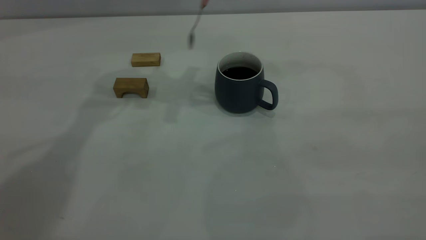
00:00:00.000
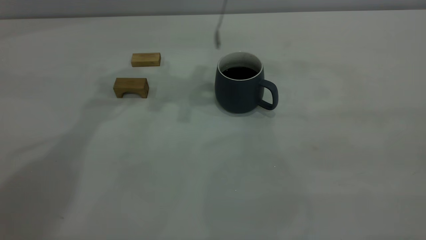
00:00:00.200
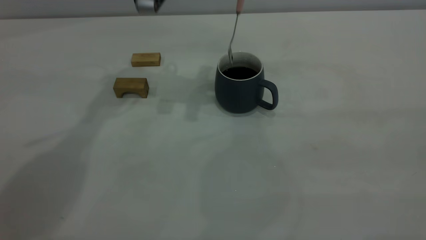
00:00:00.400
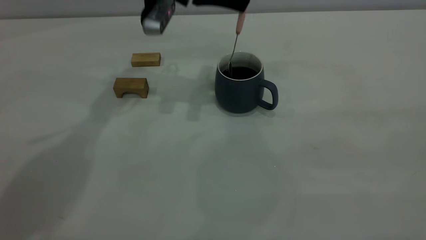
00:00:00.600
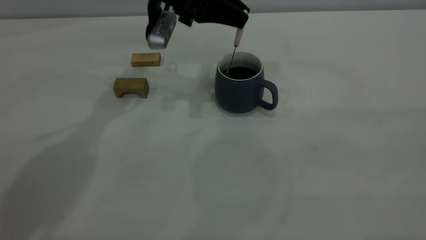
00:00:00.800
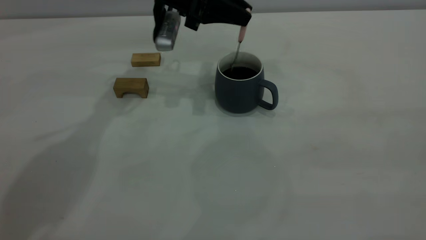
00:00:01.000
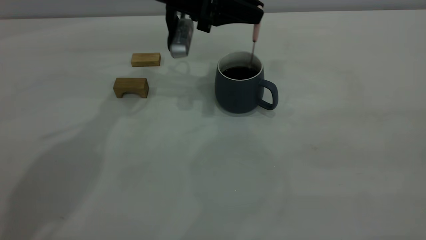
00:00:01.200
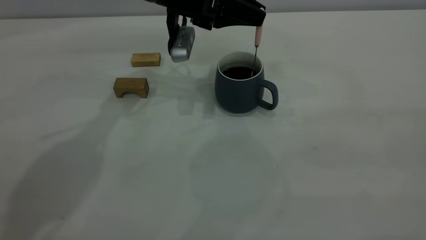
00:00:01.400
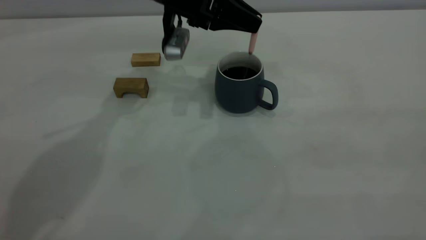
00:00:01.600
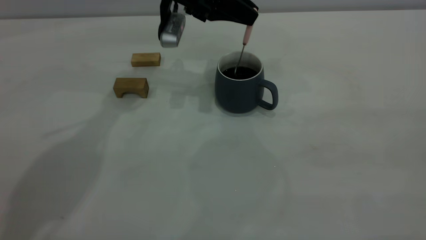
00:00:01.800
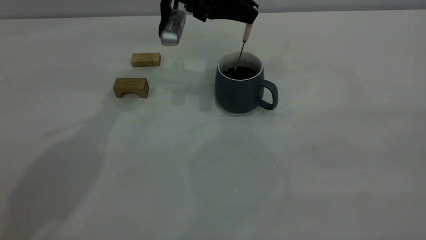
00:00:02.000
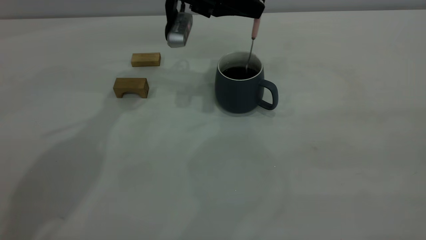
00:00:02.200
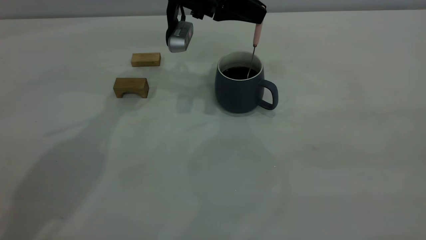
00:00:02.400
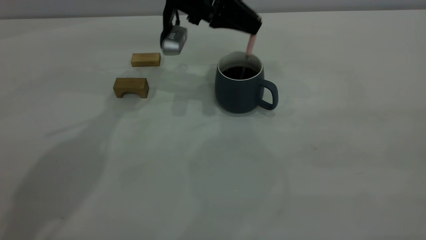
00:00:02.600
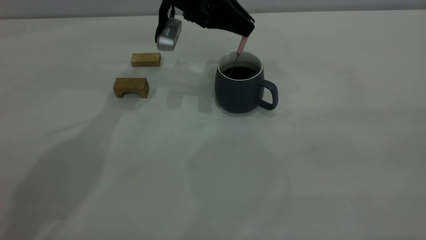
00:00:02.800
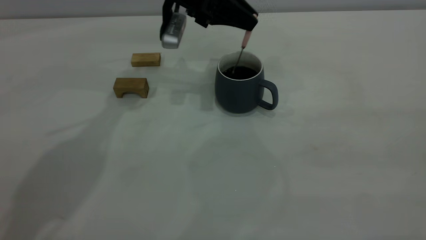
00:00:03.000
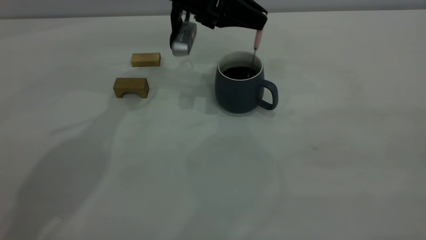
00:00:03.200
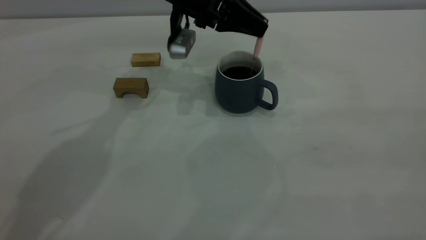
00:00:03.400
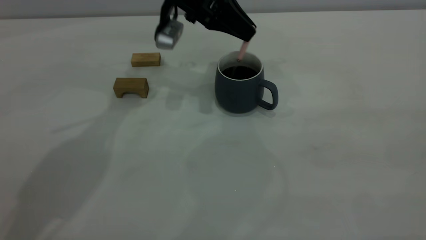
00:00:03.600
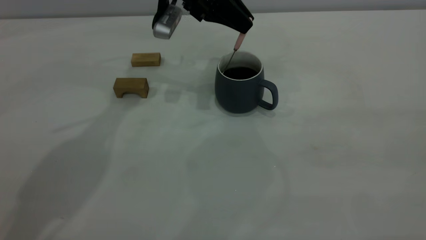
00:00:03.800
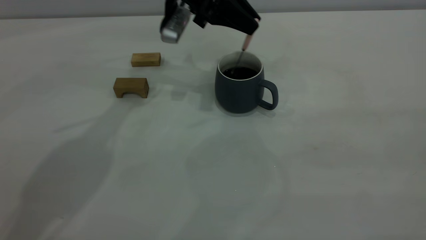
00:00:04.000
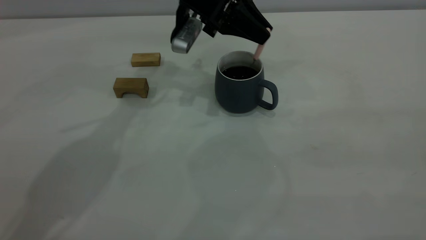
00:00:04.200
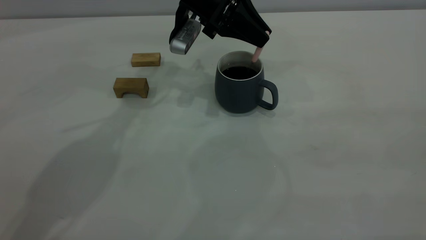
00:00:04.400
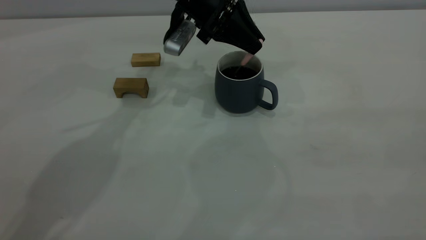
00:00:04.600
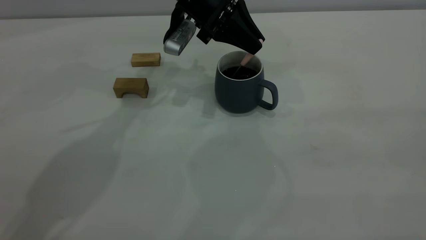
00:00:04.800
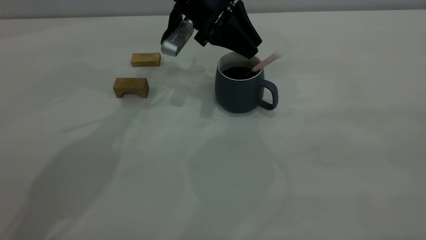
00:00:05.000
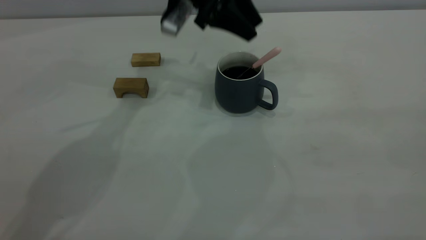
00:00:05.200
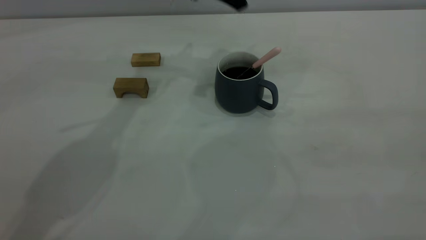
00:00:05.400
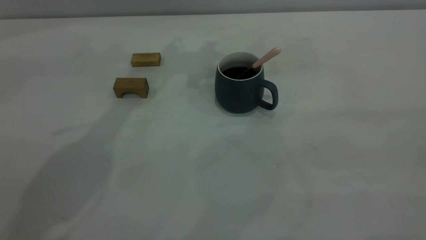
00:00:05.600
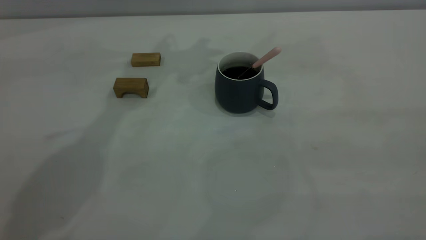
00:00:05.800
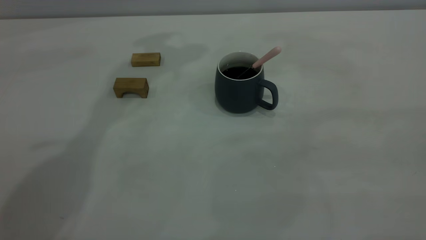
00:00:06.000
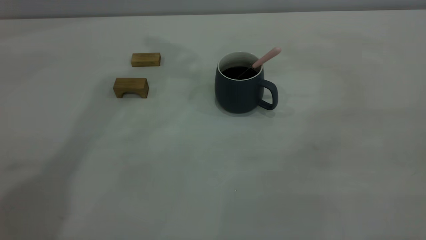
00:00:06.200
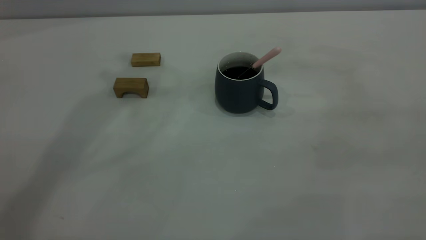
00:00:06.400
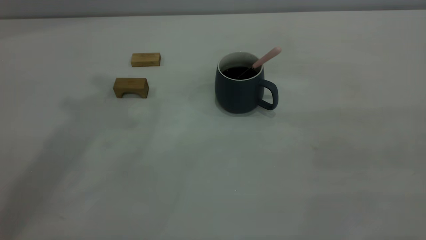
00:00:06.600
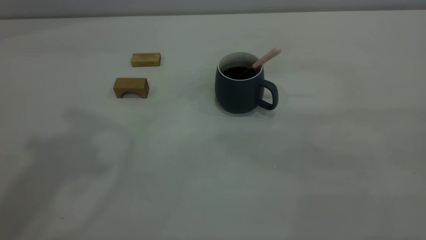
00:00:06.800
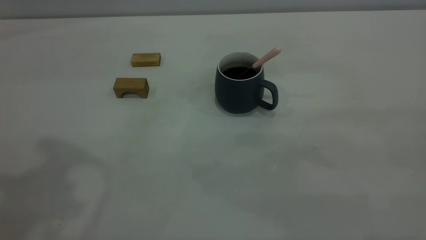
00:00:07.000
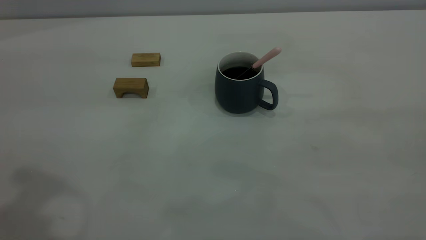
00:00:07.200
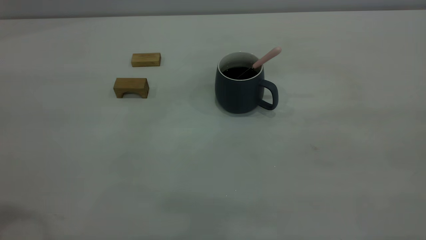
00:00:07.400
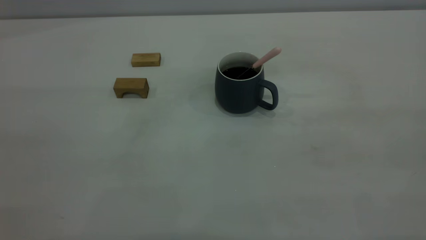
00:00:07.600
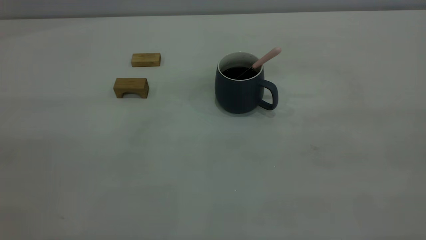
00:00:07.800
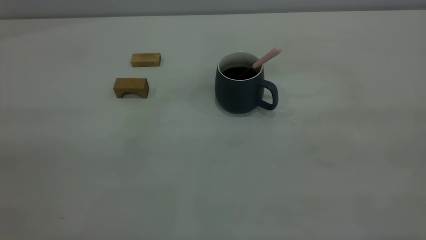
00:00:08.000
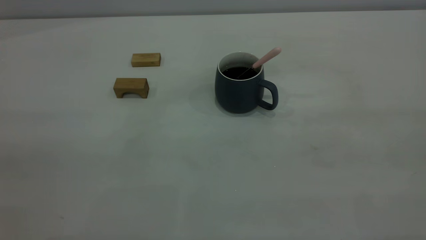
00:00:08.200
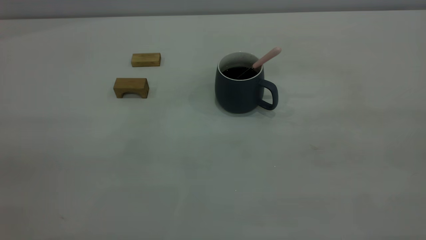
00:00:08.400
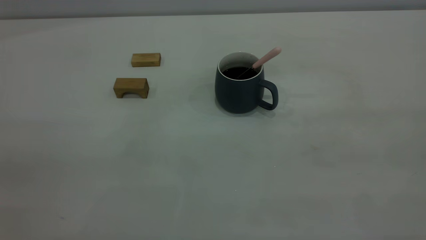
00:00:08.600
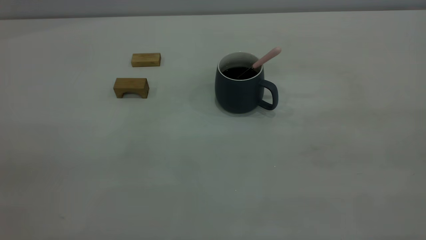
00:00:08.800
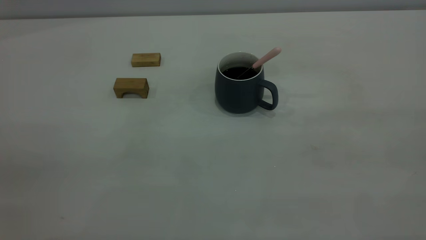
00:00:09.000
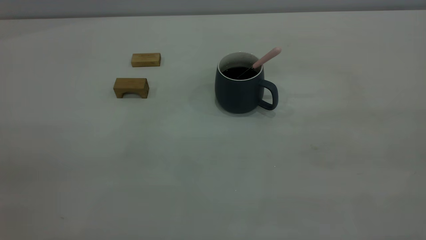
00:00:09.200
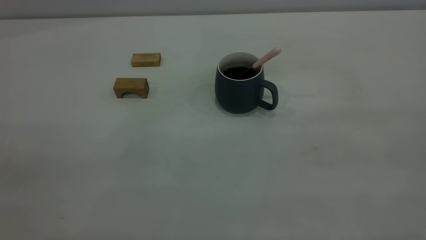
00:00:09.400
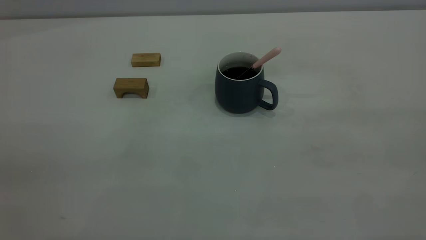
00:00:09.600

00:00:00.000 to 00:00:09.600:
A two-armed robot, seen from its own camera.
Step, 00:00:00.000 to 00:00:05.200: Stir the coffee in the cup.
00:00:00.000 to 00:00:01.600: The left gripper is displaced downward by roughly 10 cm.
00:00:01.600 to 00:00:04.800: The grippers move only a little.
00:00:04.800 to 00:00:06.400: The left gripper is displaced upward by roughly 35 cm, and opens up.
